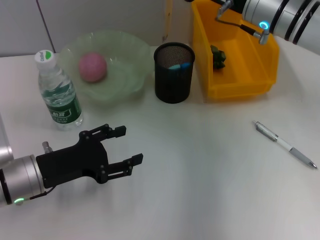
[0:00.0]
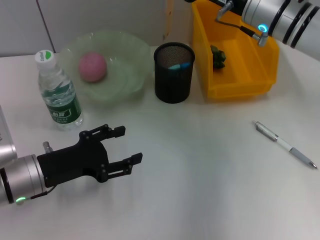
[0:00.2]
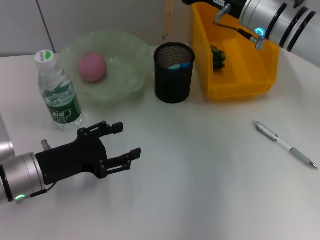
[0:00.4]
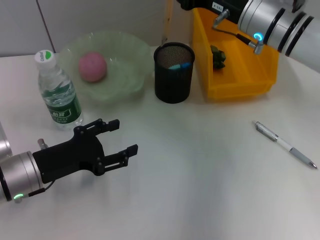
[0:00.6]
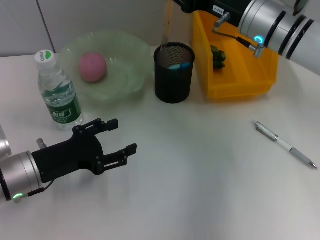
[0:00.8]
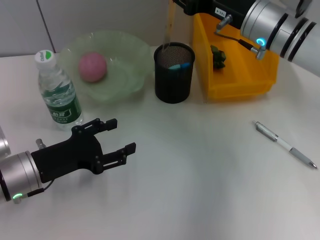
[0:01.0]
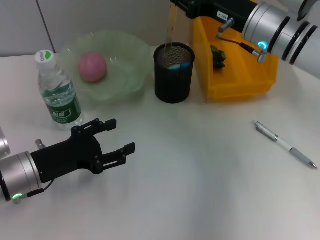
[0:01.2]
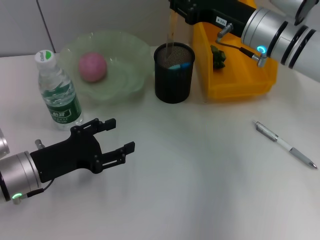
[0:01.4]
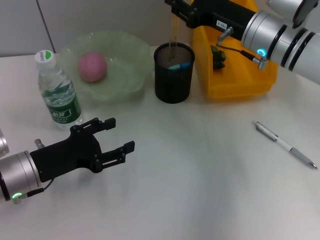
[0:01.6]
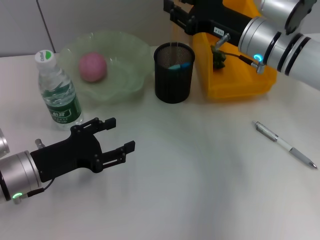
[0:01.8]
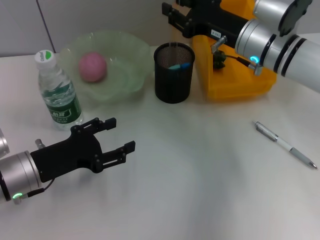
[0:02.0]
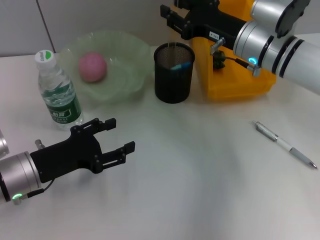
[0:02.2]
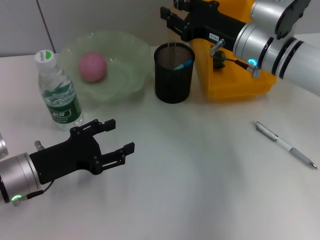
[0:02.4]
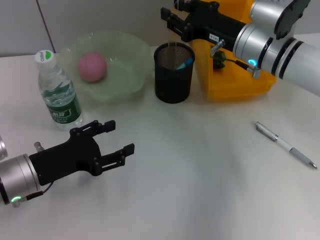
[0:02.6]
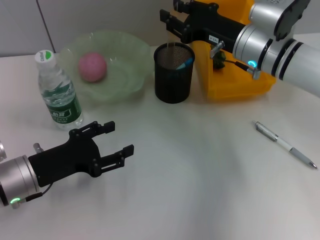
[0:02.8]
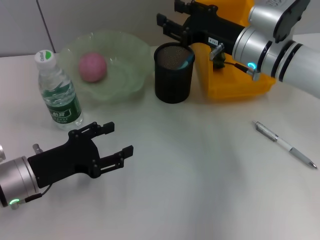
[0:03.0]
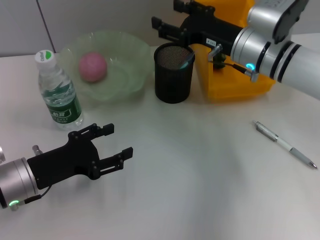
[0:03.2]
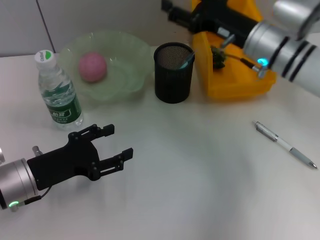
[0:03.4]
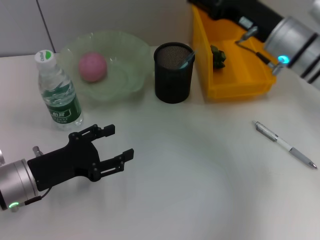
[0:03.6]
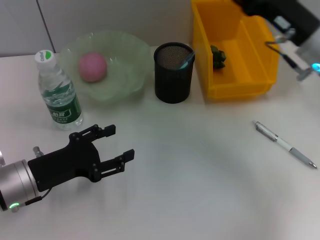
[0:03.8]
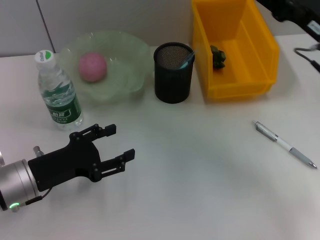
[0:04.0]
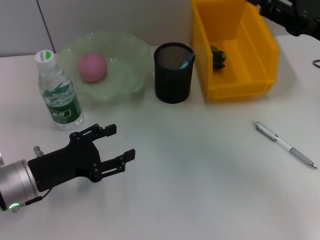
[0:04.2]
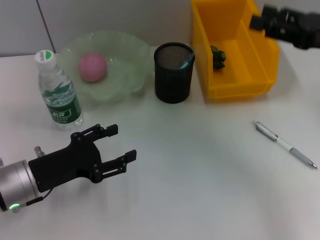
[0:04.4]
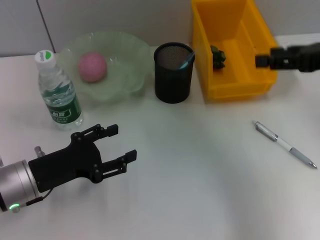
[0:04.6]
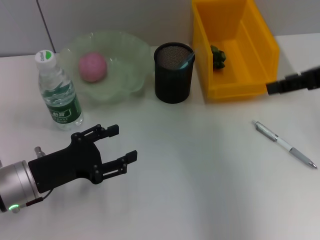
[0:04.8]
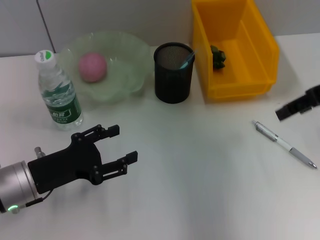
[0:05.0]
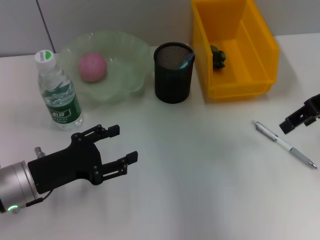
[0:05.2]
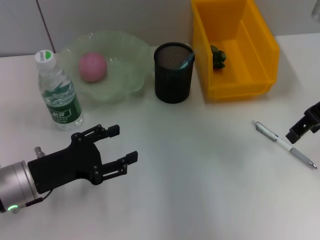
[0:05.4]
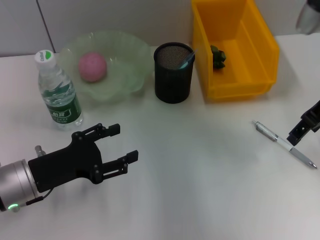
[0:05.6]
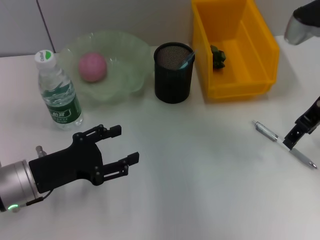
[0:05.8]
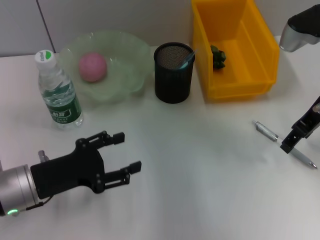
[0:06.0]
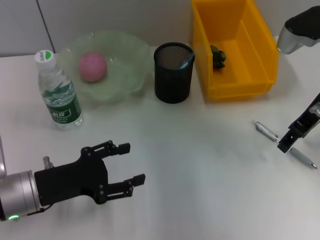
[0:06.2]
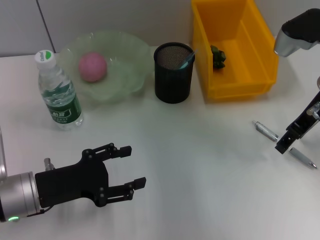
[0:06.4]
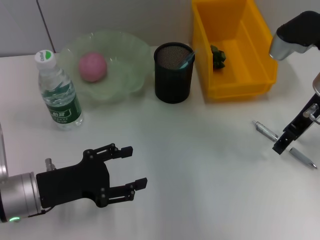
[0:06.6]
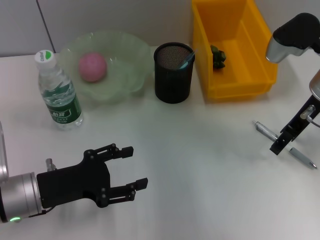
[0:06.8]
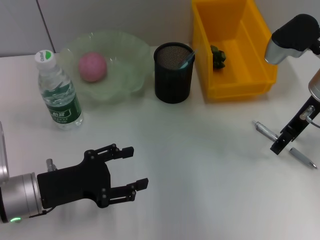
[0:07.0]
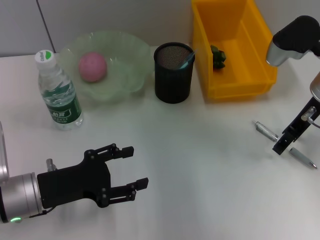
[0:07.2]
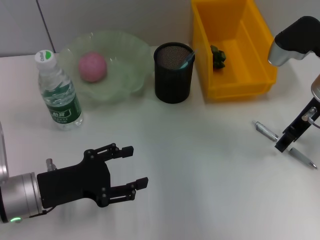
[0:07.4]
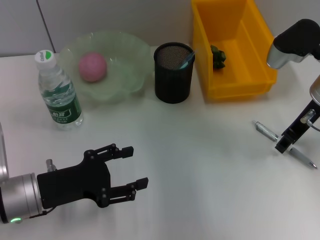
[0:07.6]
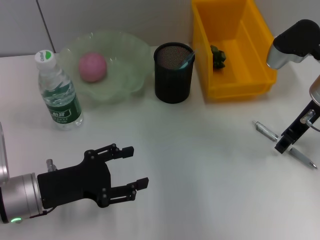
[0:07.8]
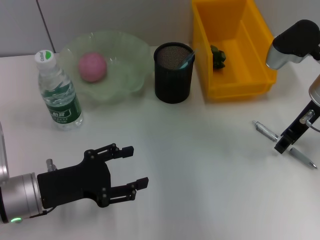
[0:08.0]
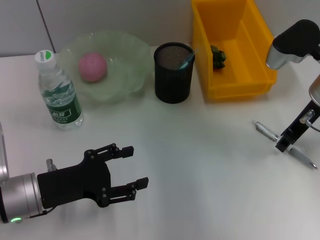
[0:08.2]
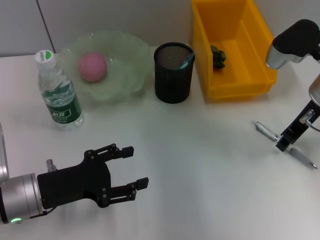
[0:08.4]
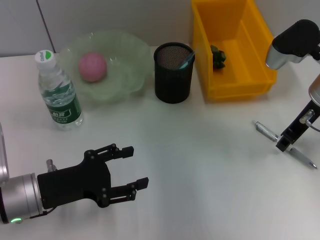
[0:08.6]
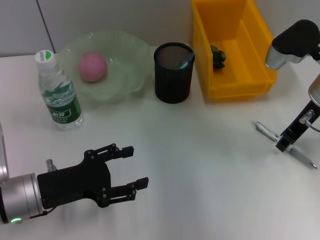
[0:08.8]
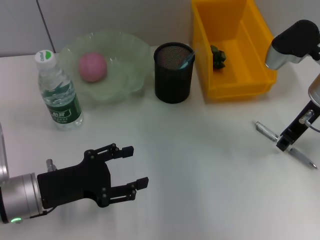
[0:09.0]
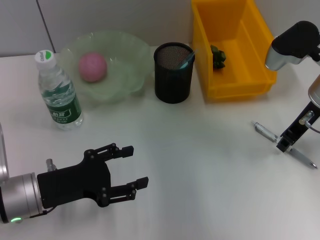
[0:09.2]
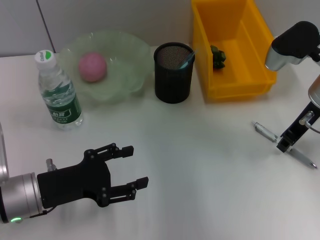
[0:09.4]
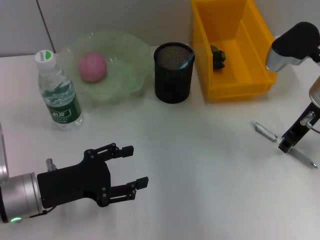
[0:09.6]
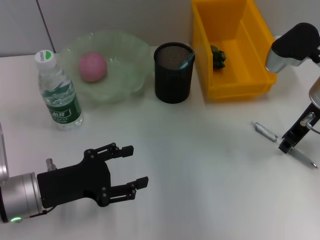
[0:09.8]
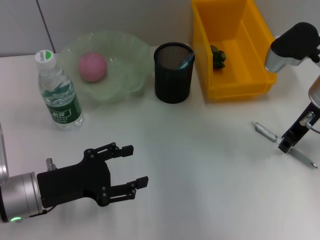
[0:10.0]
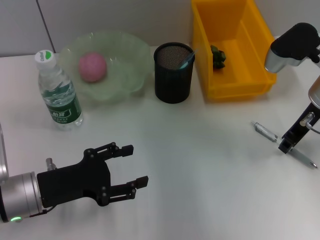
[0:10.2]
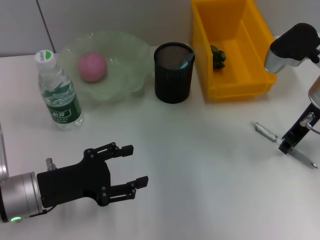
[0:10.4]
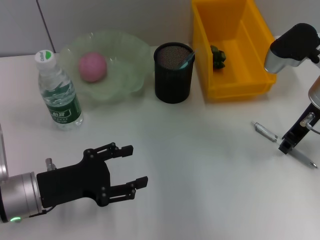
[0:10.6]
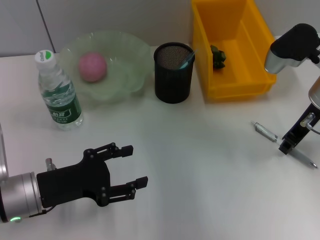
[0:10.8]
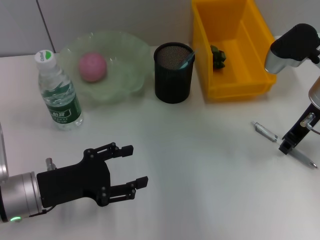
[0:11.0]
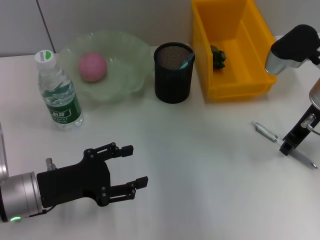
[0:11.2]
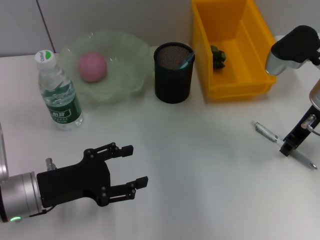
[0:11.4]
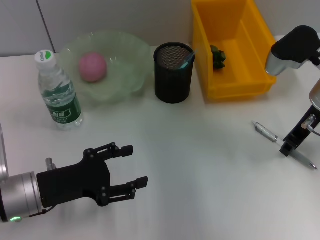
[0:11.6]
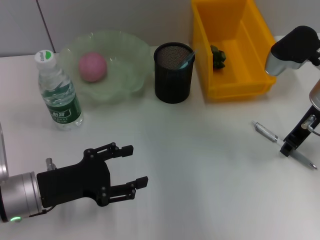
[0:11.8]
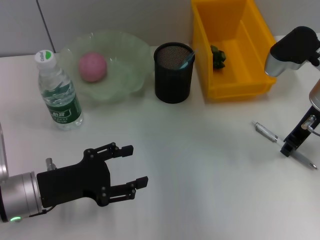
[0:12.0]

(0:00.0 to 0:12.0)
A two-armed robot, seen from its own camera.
Step, 0:00.0 - 0:03.2: Place the ruler into the pen holder with the right hand.
0:00.0 - 0:03.0: The grippers move only a little.
0:03.0 - 0:04.4: The right gripper shifts roughly 20 cm to the right, backward and upward, and opens up.
0:04.4 - 0:06.0: The right gripper moves forward, about 5 cm.
0:06.0 - 0:07.6: There are only small adjustments of the grippers.
0:07.6 - 0:09.0: The right gripper closes.
0:09.0 - 0:12.0: The two grippers keep their place.

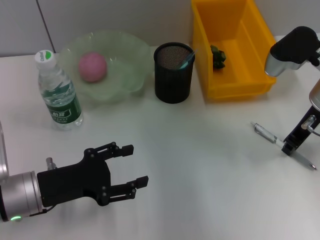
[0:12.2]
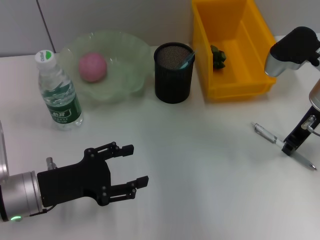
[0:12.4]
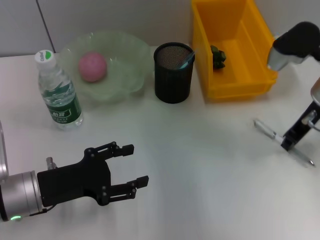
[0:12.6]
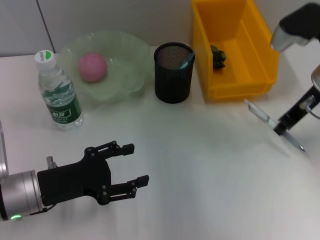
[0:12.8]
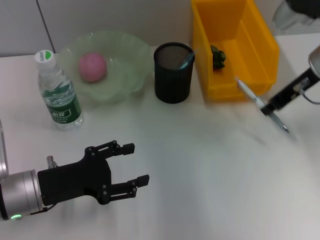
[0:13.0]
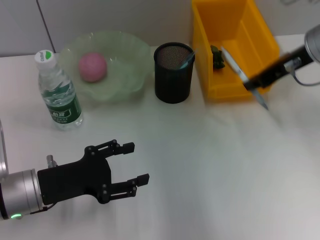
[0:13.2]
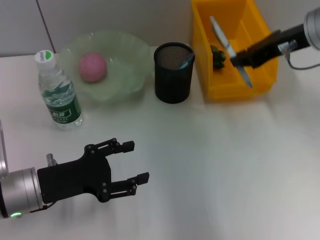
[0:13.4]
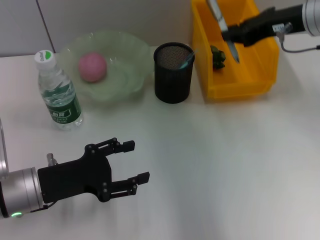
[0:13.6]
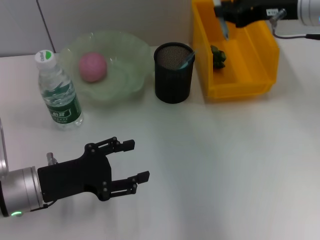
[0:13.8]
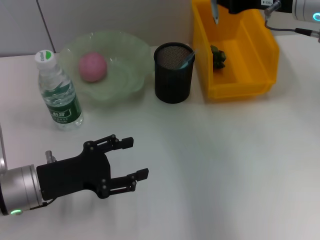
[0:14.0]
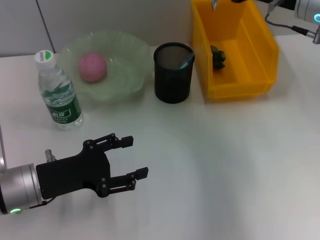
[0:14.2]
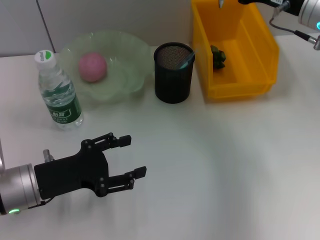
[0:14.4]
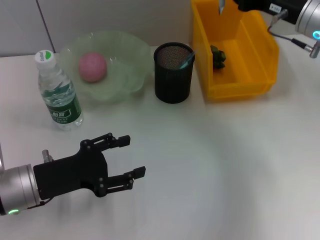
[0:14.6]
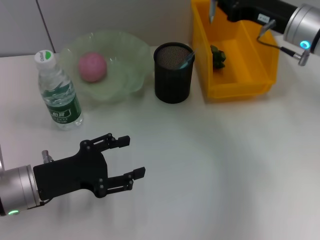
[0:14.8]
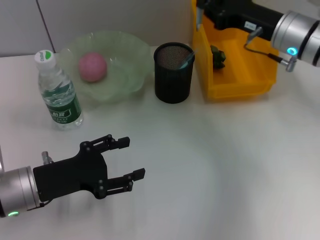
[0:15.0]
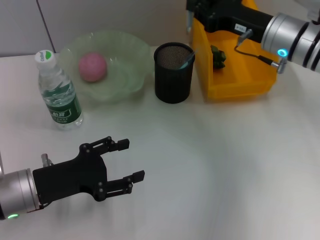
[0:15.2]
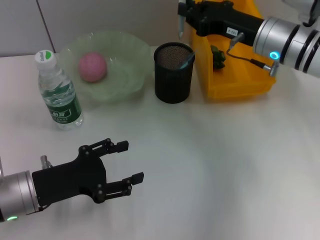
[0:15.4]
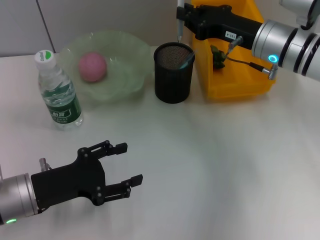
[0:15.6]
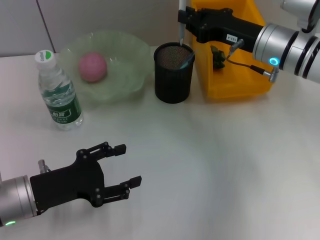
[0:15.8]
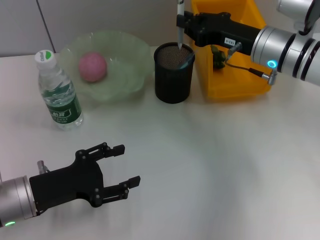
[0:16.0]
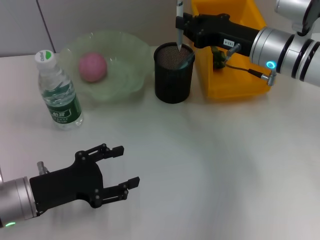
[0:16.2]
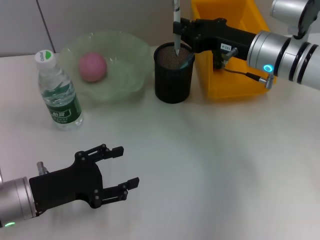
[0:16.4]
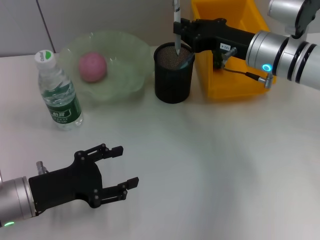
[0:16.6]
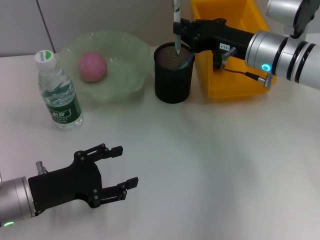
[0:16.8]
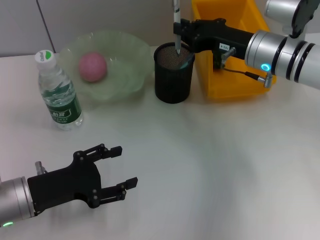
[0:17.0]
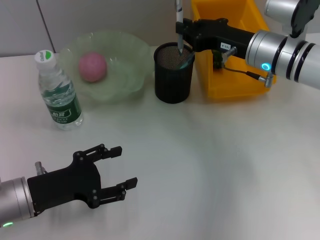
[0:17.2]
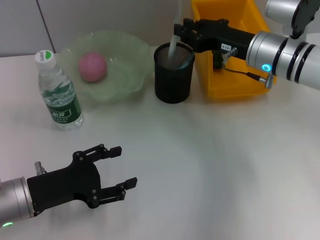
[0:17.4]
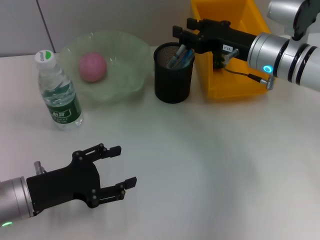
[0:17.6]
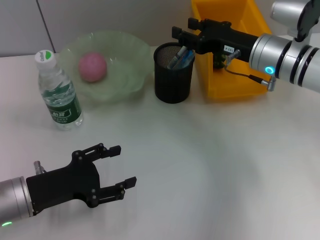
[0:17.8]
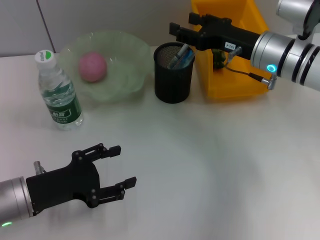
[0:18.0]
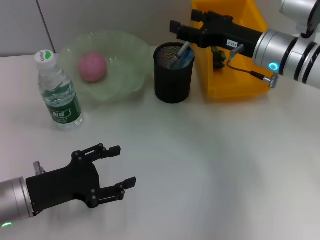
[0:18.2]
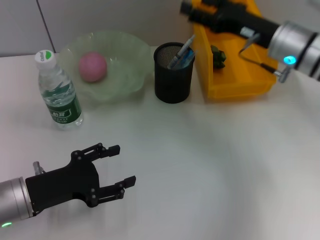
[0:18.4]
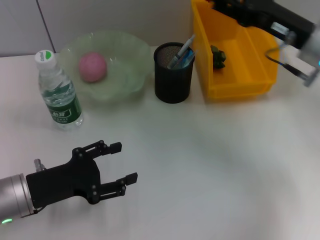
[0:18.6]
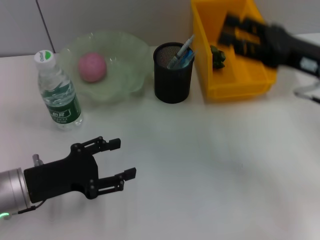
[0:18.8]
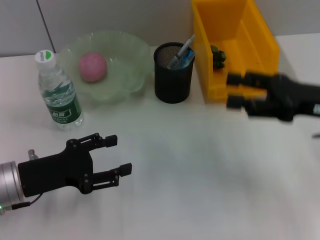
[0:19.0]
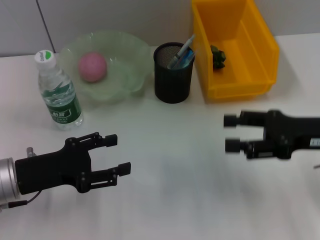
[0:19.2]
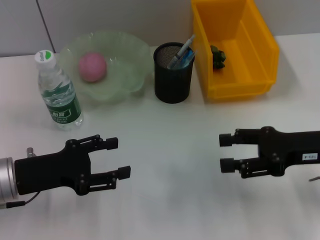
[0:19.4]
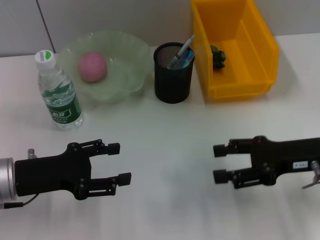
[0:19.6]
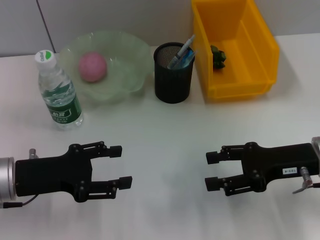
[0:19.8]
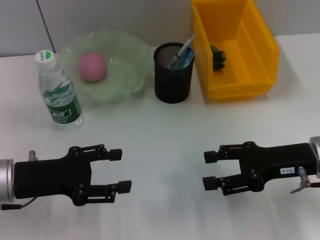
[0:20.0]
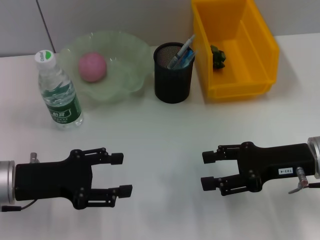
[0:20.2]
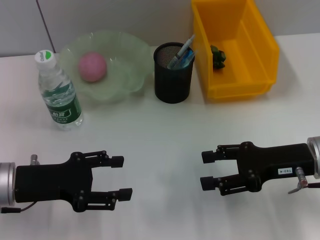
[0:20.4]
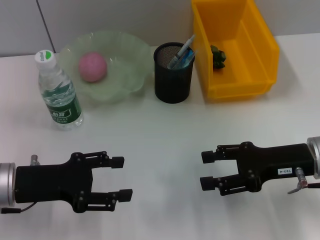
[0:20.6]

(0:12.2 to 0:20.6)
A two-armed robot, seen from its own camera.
Step, 0:12.4 - 0:17.6: Place the gray spring-action pen into the pen holder with the right hand.
0:12.2 - 0:13.6: The right gripper heads upward, covering about 10 cm.
0:13.6 - 0:15.0: The right gripper is displaced downward by some 10 cm.
0:15.0 - 0:16.4: The grippers make only small movements.
0:16.4 - 0:17.8: The right gripper opens its fingers.
0:17.8 - 0:19.2: The right gripper travels backward and to the right by roughly 15 cm, and opens its fingers.
0:19.2 - 0:20.6: The grippers stay close to where they were, moving slightly.

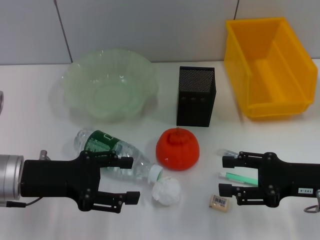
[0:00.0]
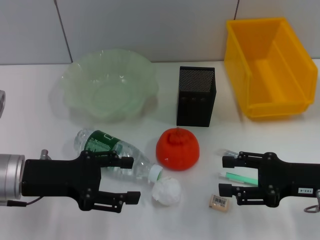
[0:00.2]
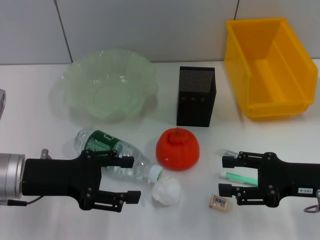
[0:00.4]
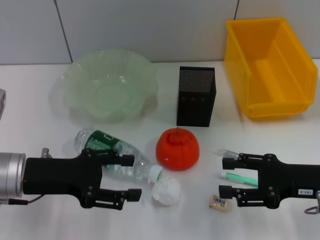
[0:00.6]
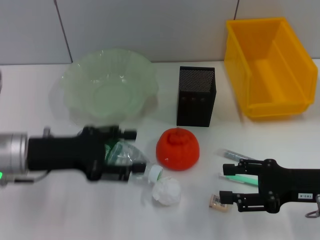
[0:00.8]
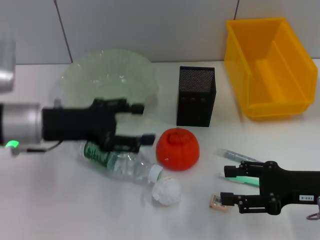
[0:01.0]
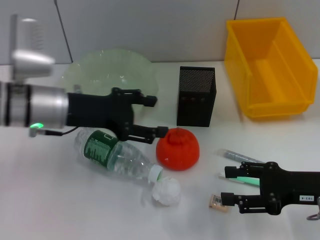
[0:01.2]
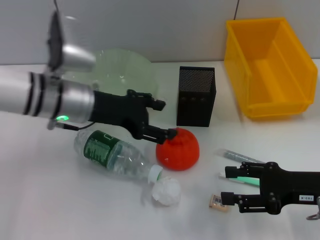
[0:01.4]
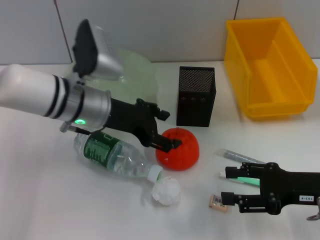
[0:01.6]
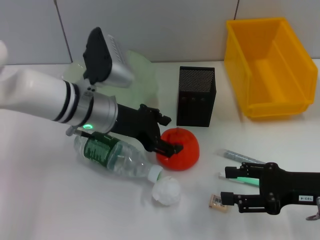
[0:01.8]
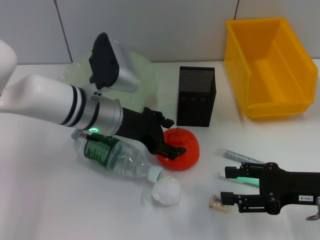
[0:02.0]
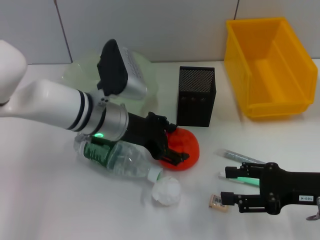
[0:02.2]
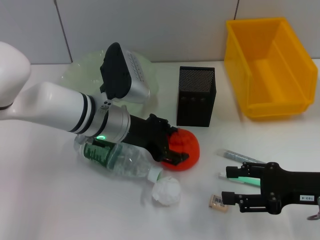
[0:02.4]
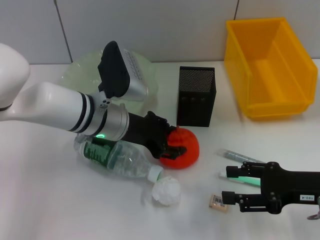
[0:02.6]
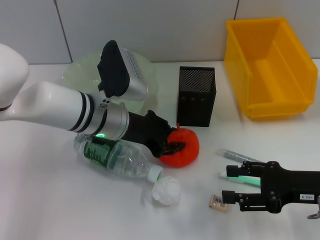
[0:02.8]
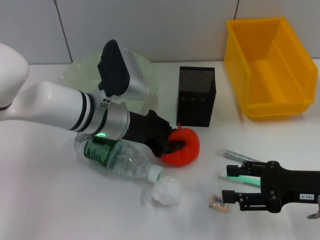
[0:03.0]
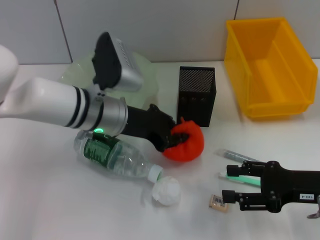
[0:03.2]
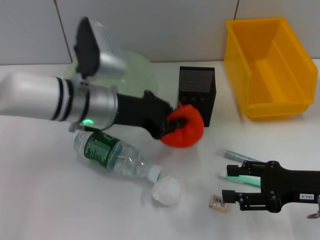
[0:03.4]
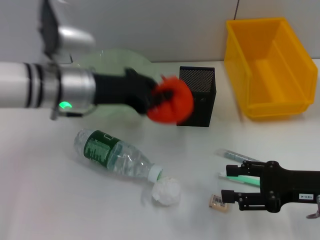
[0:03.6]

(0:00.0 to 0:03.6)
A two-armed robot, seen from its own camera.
Step, 0:00.0 - 0:02.8: Grab the orange with the left hand.
0:00.0 - 0:01.8: The left gripper shifts approximately 15 cm to the right and forward.
0:01.8 - 0:03.6: The left gripper closes up.
